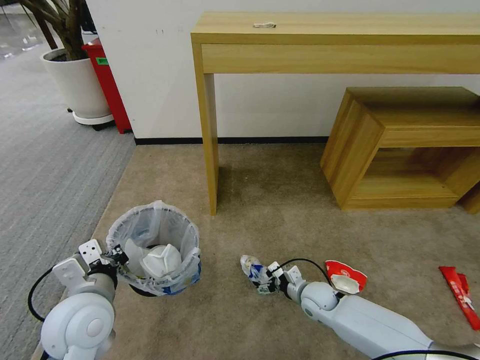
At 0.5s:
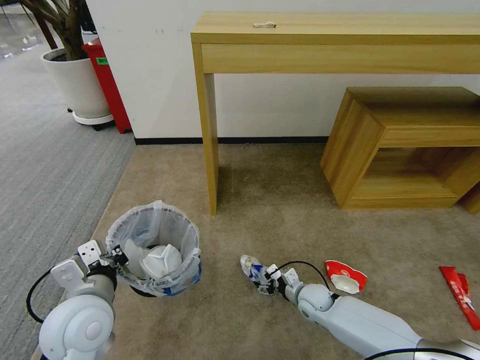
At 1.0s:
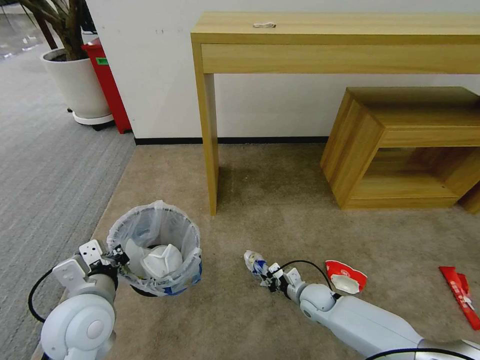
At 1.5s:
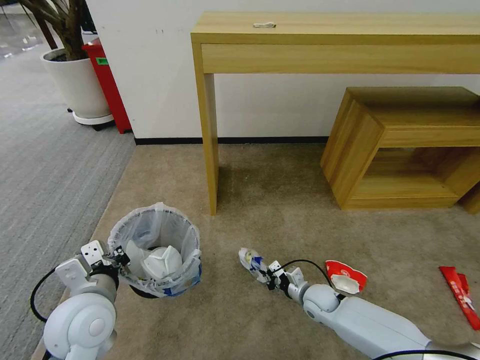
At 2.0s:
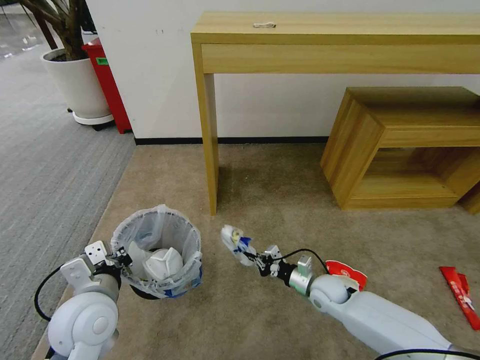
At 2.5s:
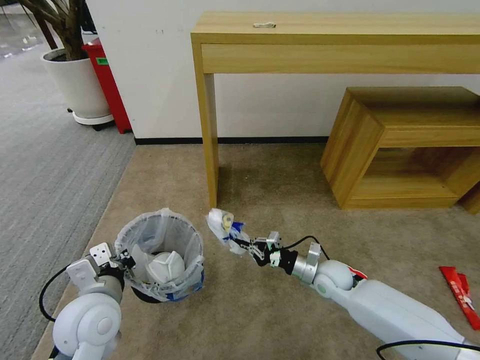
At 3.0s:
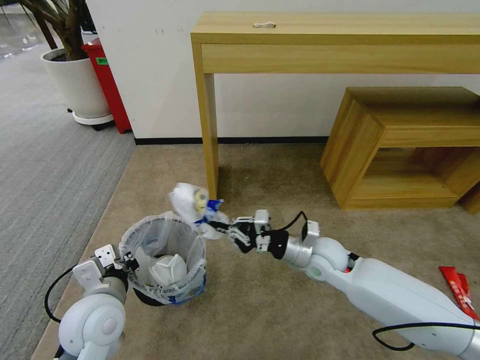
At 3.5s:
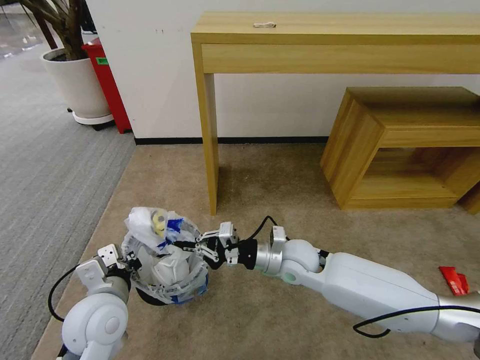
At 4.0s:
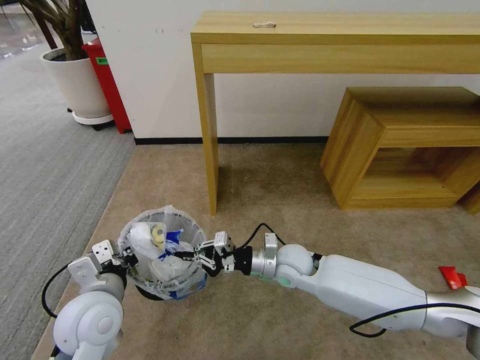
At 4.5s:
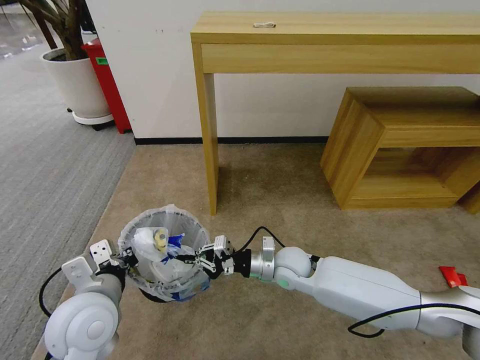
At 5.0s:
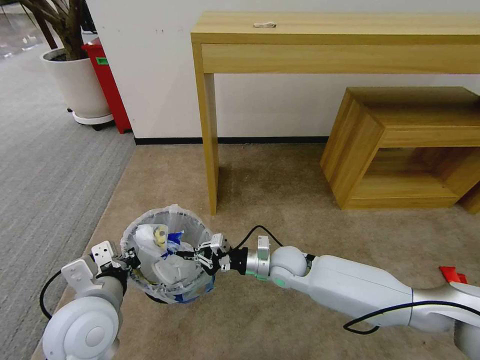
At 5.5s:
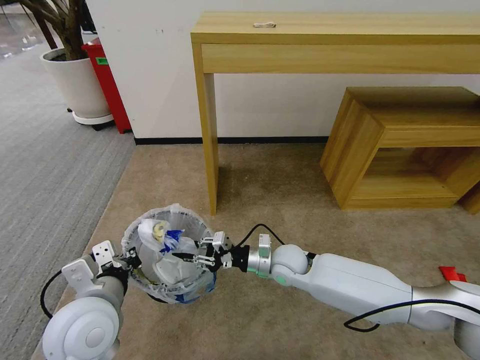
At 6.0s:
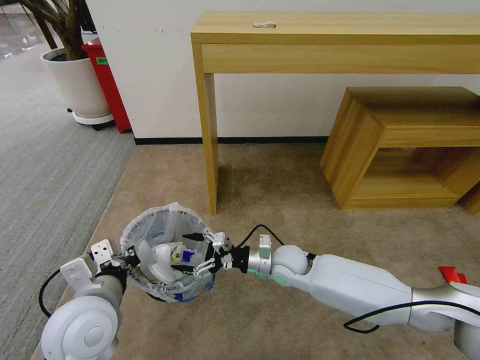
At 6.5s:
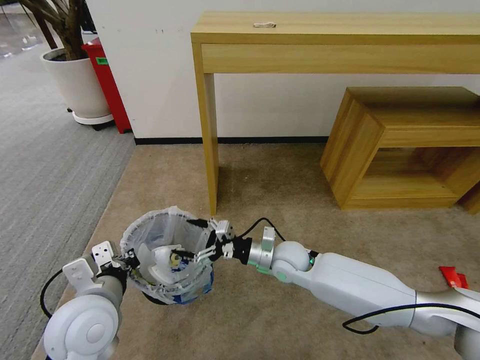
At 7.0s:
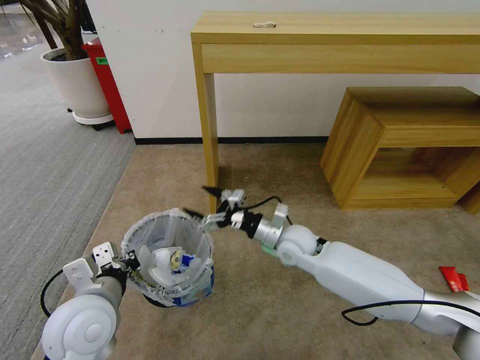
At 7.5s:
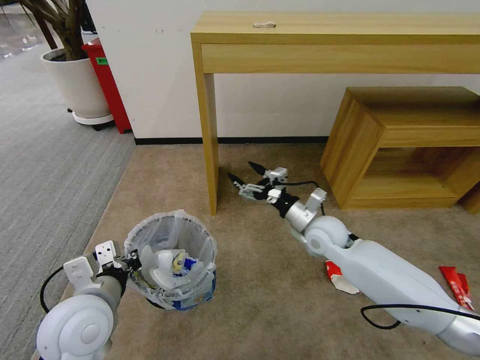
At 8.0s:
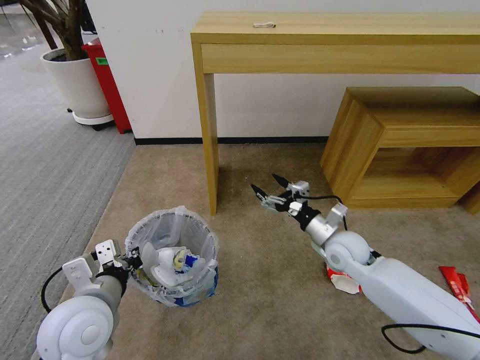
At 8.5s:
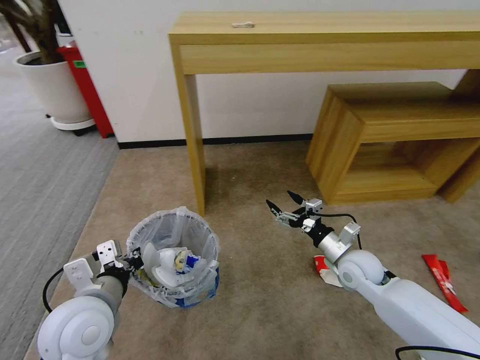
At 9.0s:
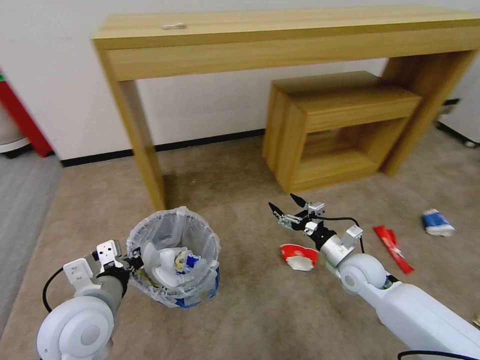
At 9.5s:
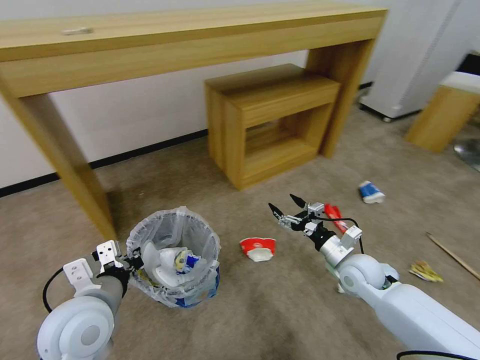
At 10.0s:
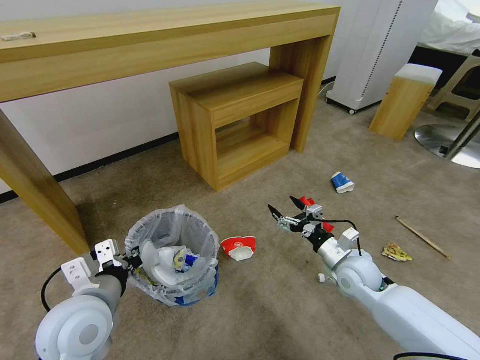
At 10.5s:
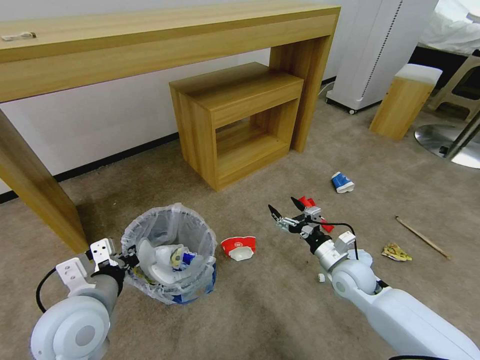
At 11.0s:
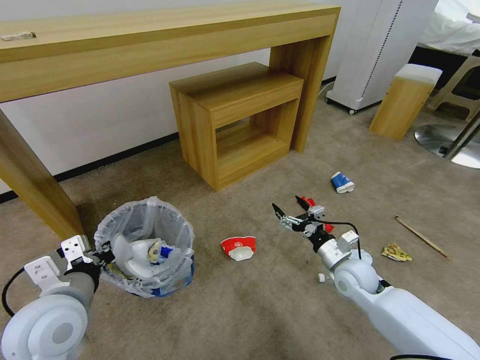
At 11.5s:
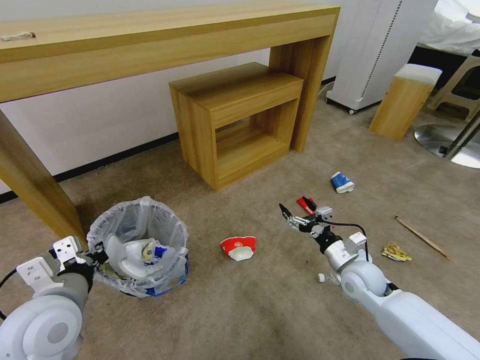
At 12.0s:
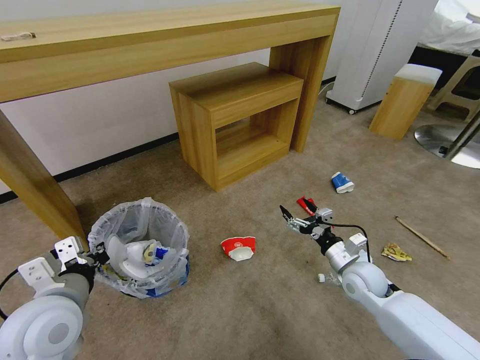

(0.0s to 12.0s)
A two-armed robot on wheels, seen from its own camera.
Task of the whole recording: Pick up the trash bin and place the garbage on the floor into it.
0.0s - 2.0s: The right gripper closes.
2.0s - 4.0s: The right gripper goes approximately 15 cm upward and to the left.
4.0s - 6.0s: The right gripper opens.
6.0s - 8.0s: The right gripper goes some 15 cm to the right.
8.0s - 10.0s: The right gripper changes place by approximately 5 cm.
10.0s - 12.0s: The grippers make only small movements.

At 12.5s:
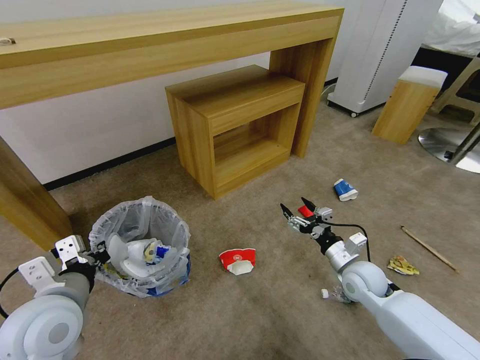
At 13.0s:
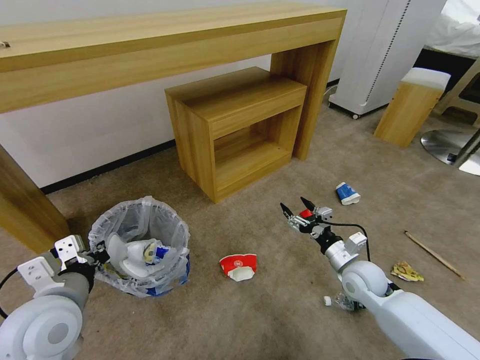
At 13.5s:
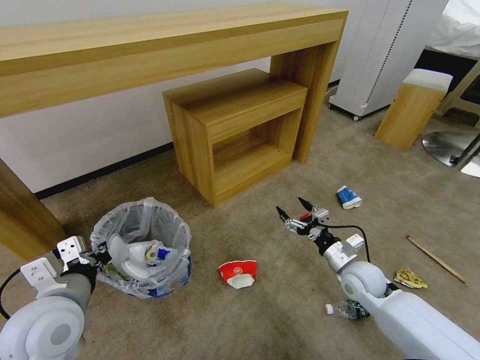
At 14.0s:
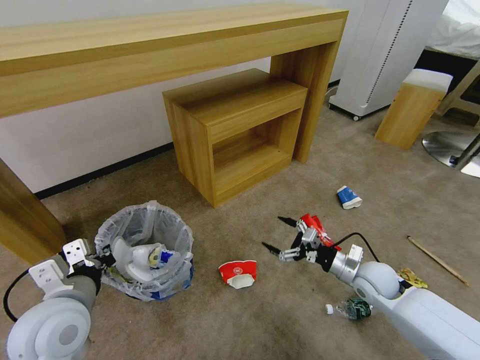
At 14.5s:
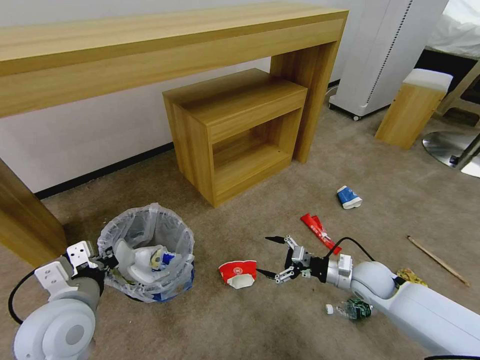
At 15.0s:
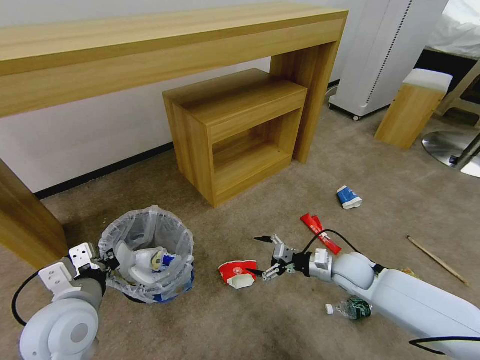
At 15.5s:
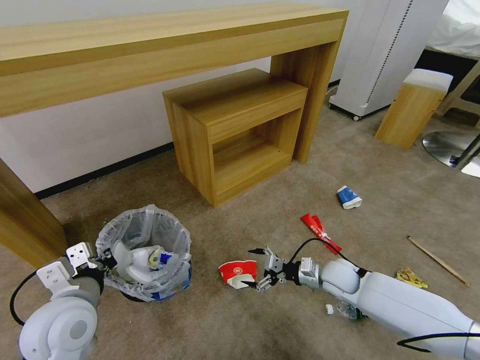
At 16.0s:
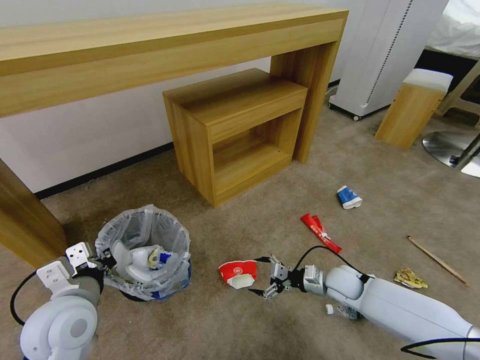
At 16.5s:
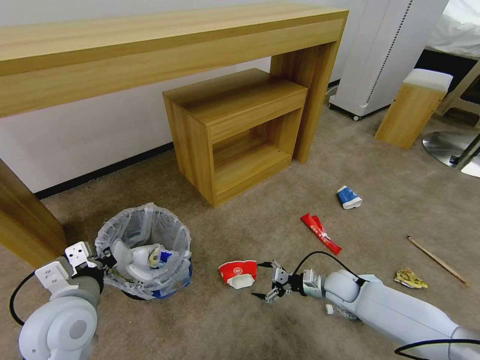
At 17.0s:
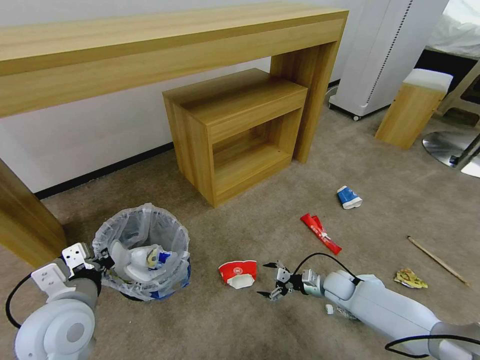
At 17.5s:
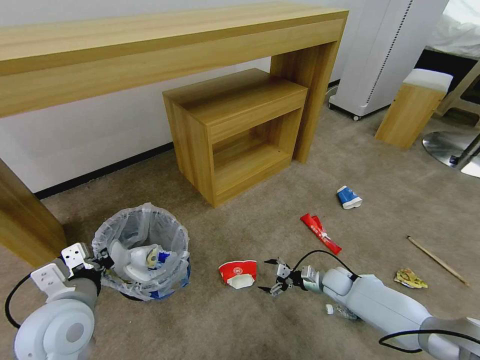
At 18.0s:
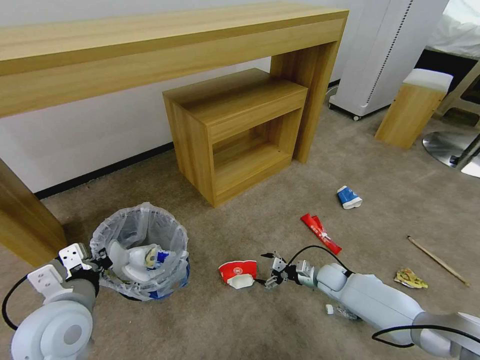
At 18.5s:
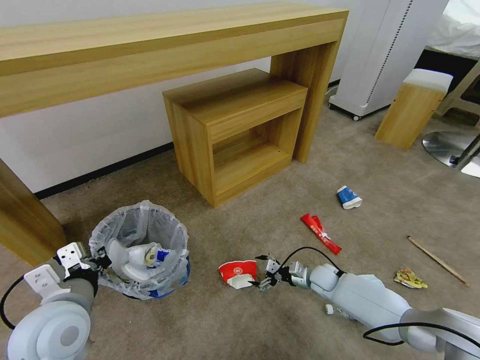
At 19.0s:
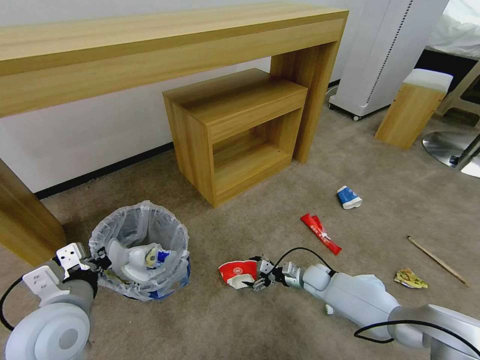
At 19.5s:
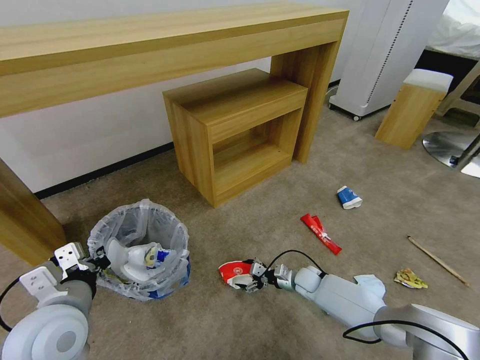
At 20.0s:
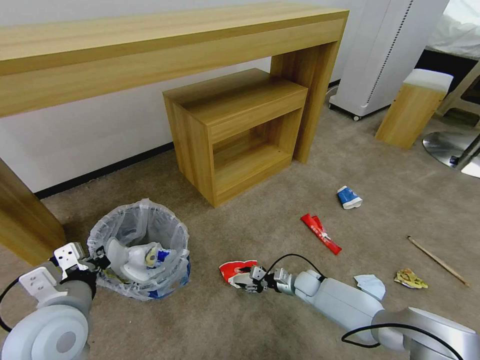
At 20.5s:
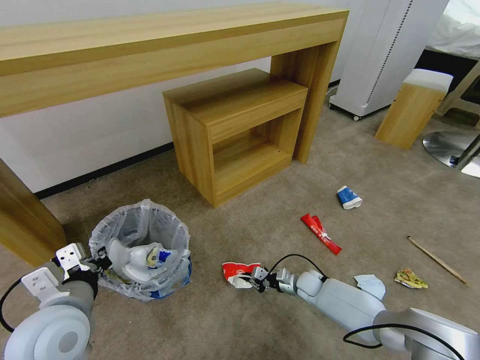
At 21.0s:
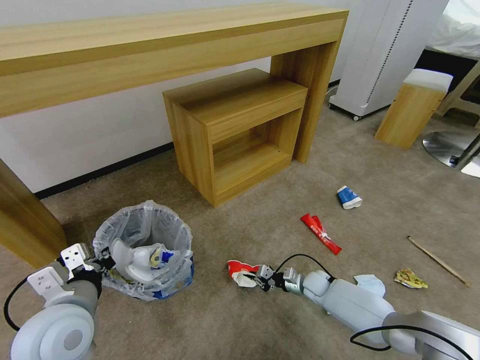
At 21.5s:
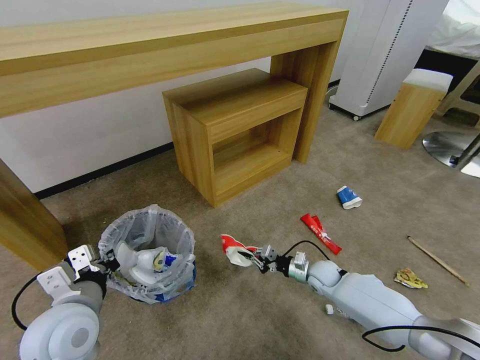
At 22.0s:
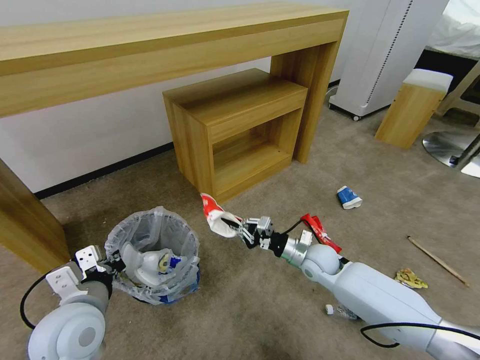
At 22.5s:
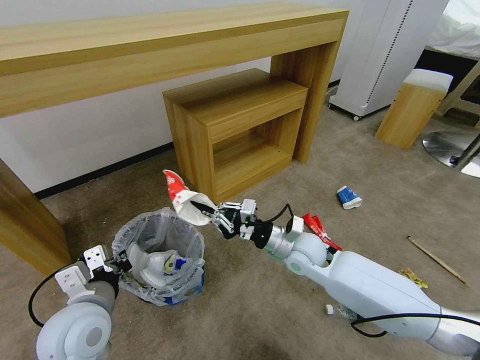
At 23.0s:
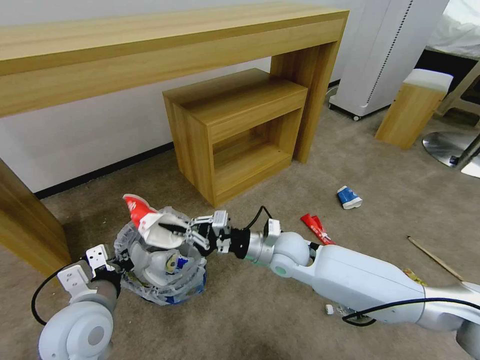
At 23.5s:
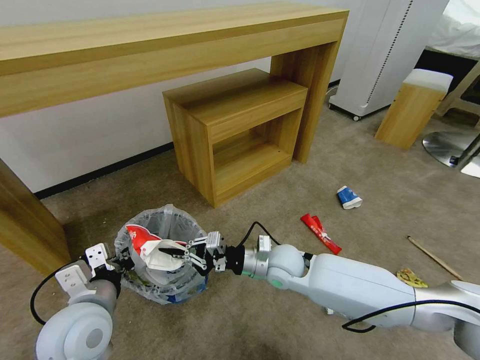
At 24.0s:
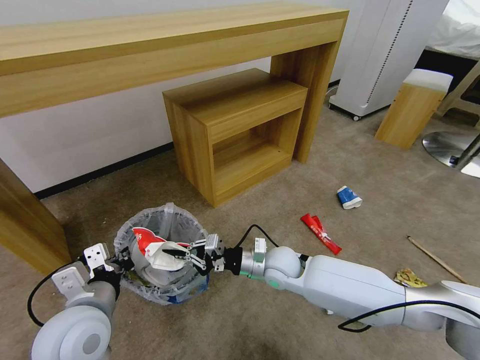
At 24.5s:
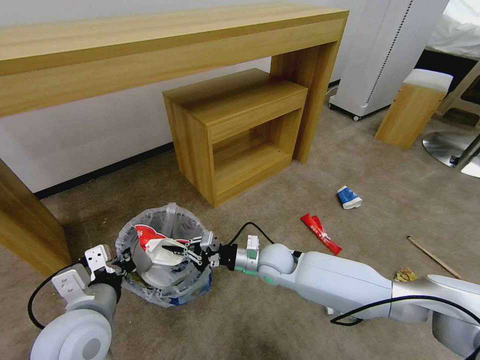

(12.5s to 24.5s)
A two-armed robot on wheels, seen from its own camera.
Task of the whole recording: Pick up the trash bin and place the garbage on the floor into it.
14.5s - 16.5s: The right gripper heads downward, covering roughly 10 cm.
16.5s - 18.5s: The right gripper changes place by roughly 5 cm.
18.5s - 20.5s: The right gripper changes place by approximately 5 cm, and closes up.
20.5s - 22.5s: The right gripper heads upward, covering approximately 25 cm.
22.5s - 24.5s: The right gripper shifts about 10 cm downward and to the left.

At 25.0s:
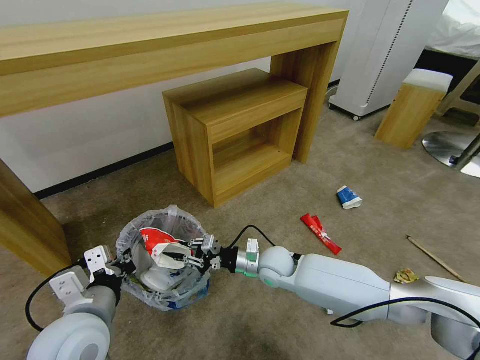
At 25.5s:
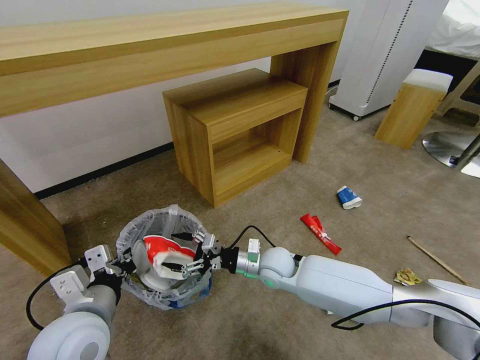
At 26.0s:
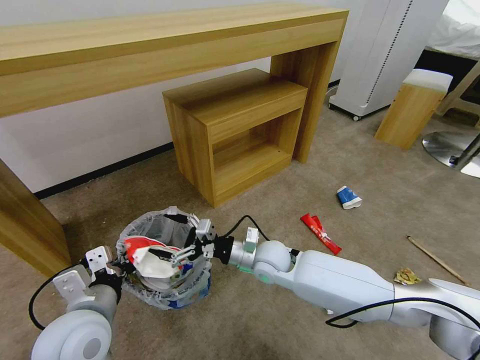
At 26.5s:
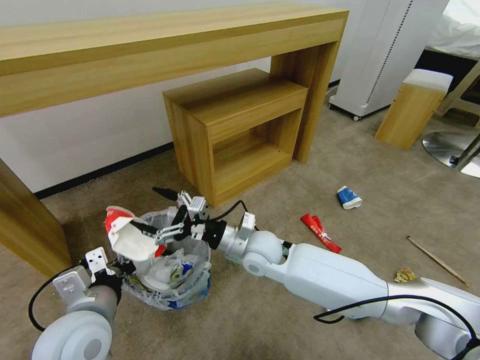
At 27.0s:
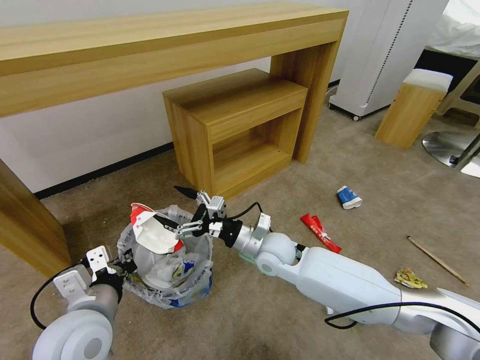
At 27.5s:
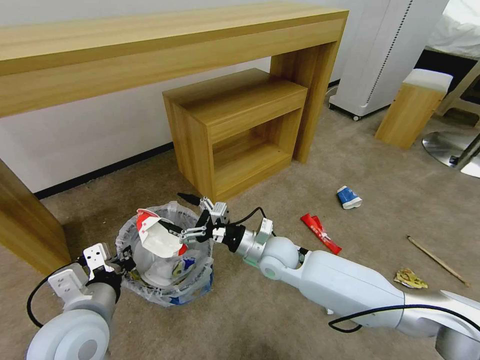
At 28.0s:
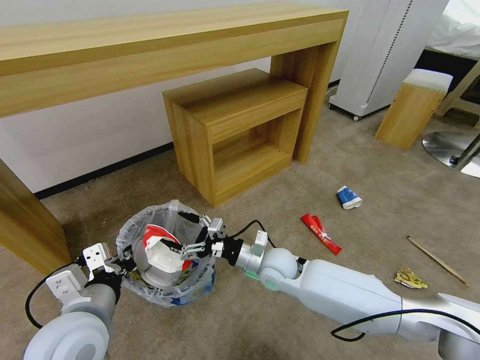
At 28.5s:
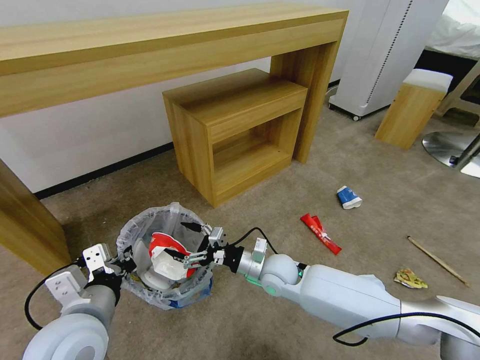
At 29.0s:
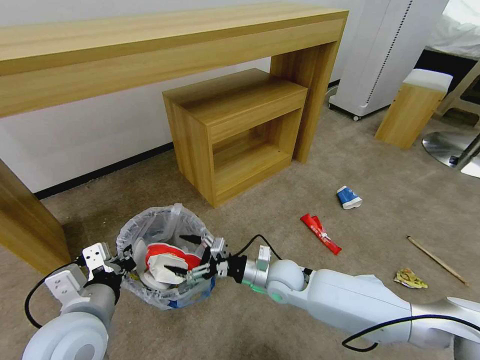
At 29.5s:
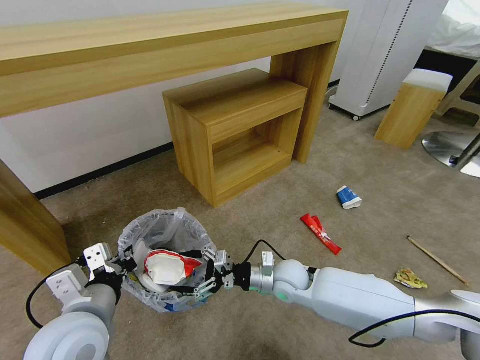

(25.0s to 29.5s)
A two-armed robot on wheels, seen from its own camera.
Task of the whole recording: Pick up the trash bin and place the garbage on the floor into it.
25.0s - 27.0s: The right gripper goes approximately 5 cm upward, and opens its fingers.
27.0s - 29.5s: The right gripper shifts roughly 10 cm downward.
